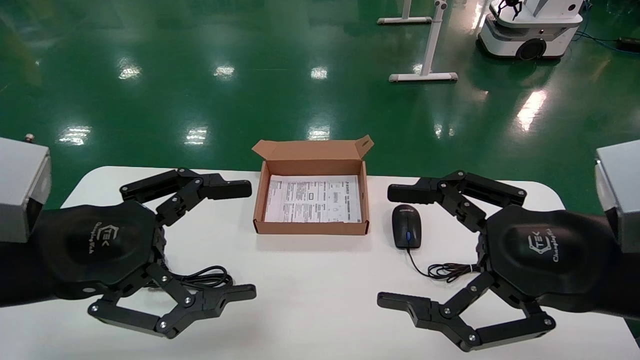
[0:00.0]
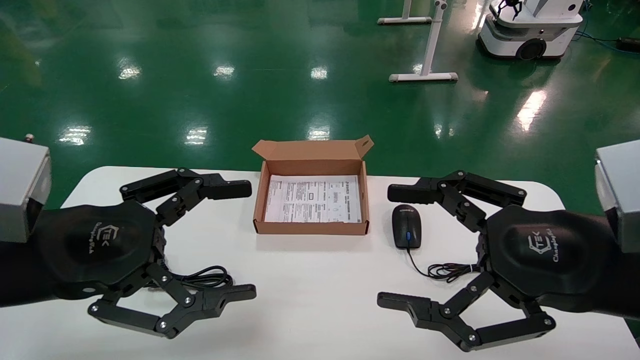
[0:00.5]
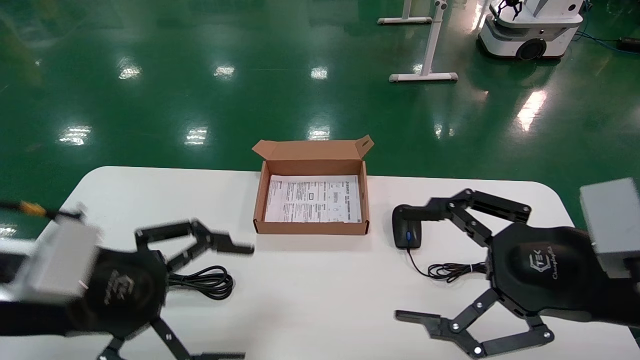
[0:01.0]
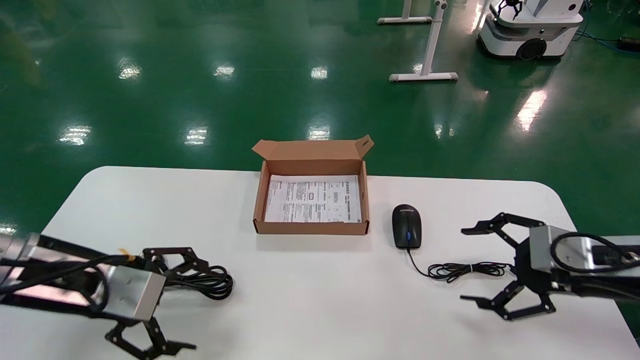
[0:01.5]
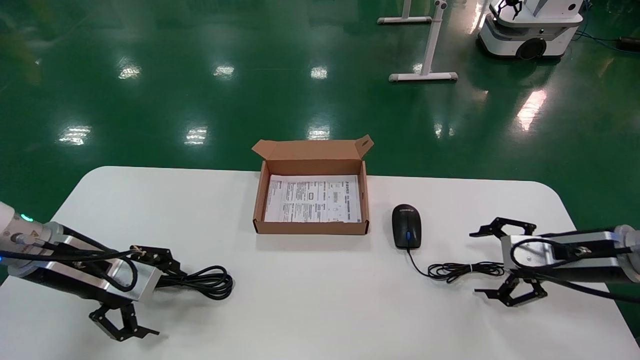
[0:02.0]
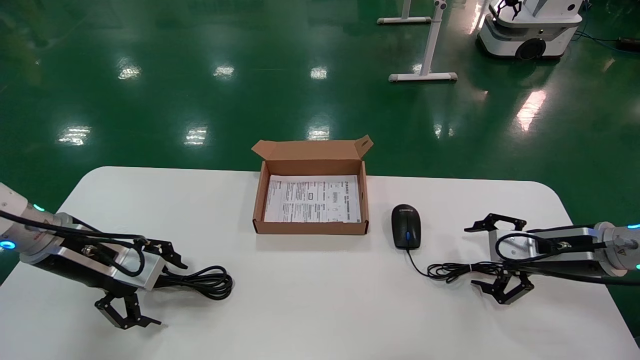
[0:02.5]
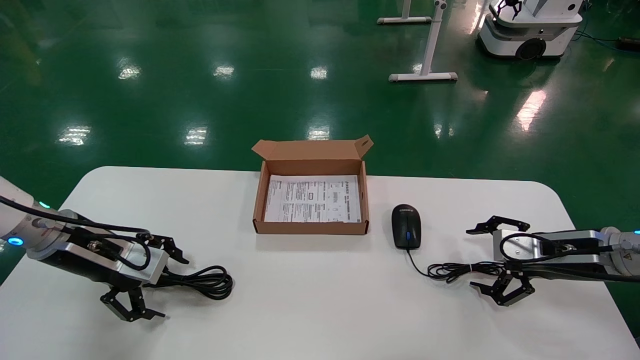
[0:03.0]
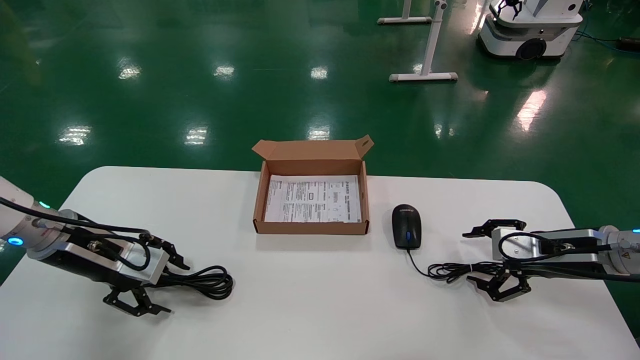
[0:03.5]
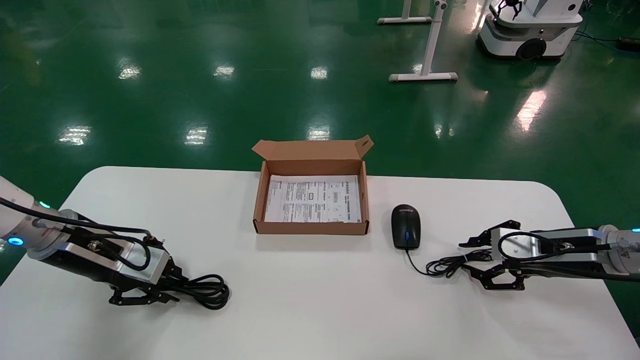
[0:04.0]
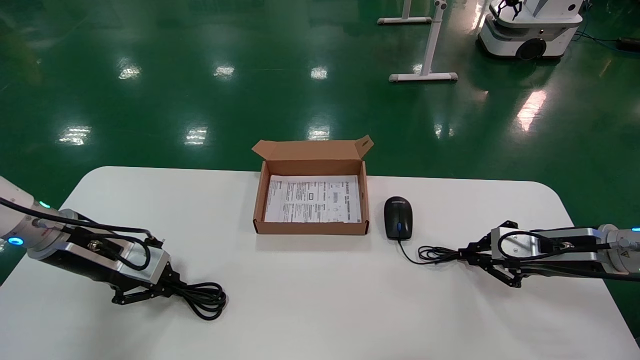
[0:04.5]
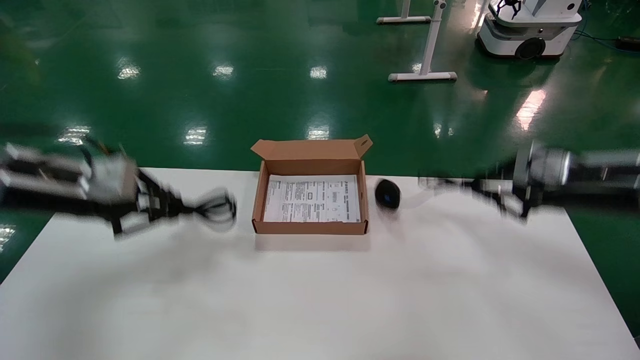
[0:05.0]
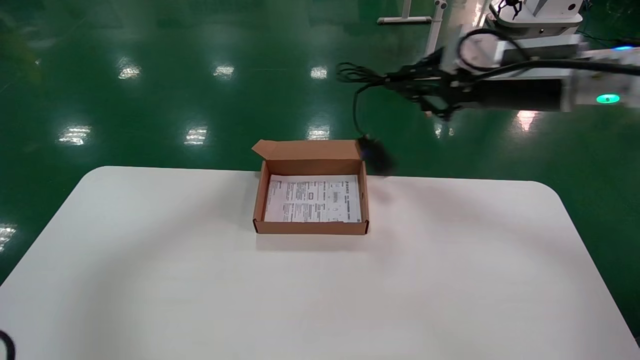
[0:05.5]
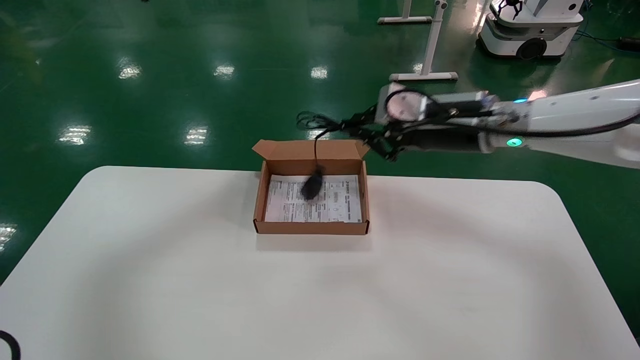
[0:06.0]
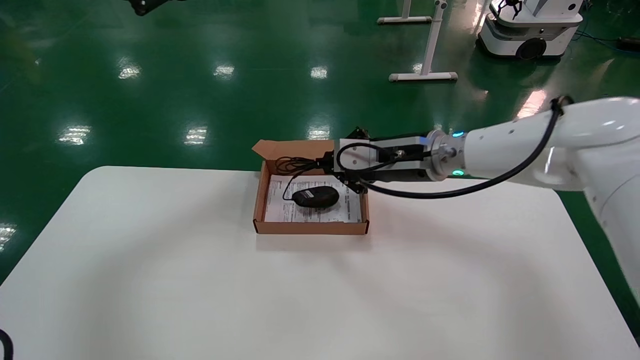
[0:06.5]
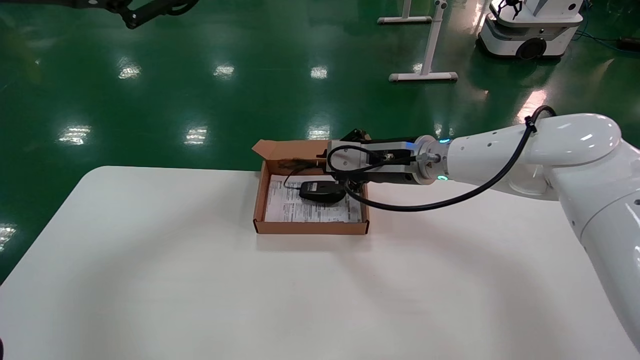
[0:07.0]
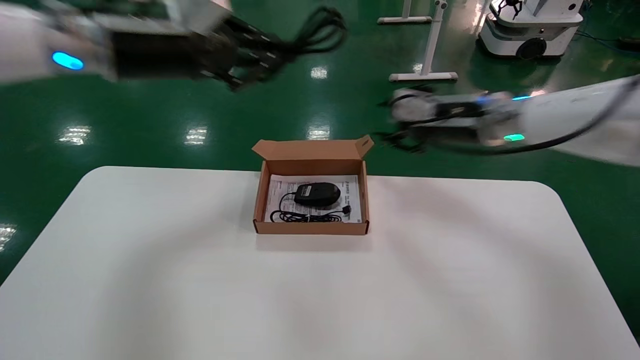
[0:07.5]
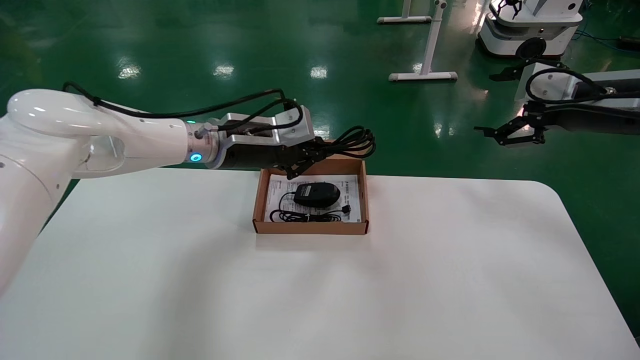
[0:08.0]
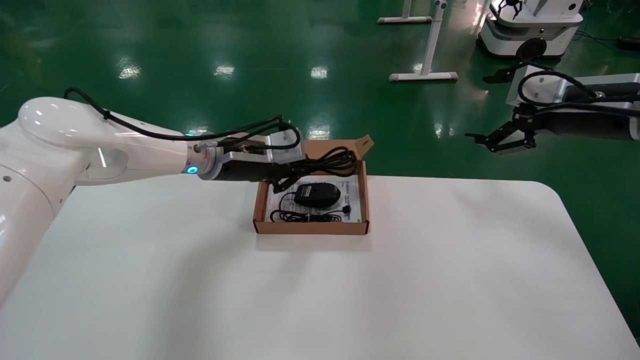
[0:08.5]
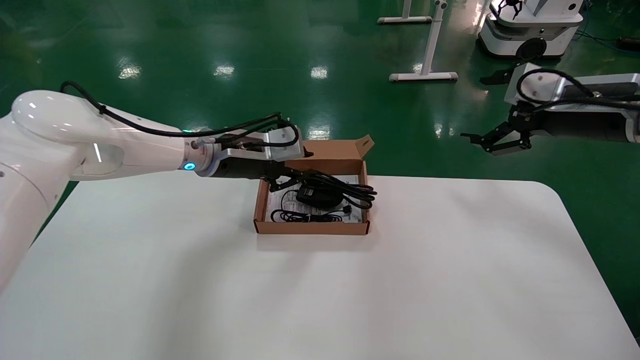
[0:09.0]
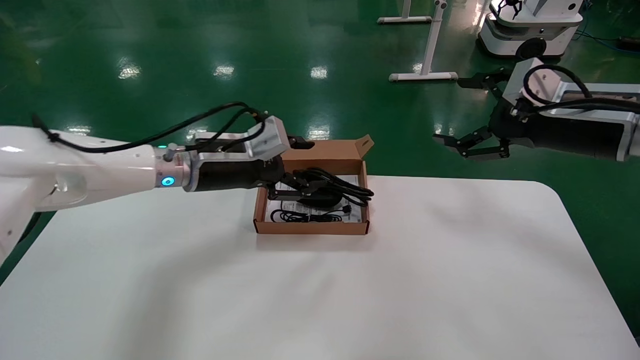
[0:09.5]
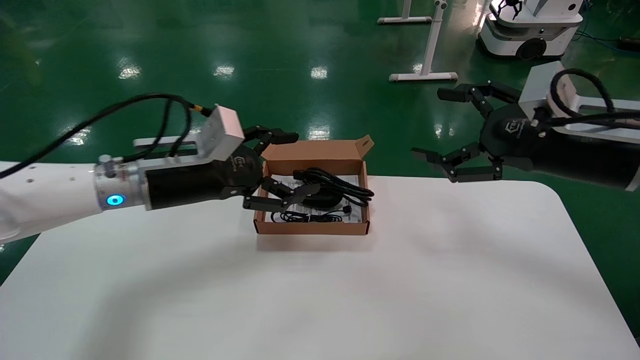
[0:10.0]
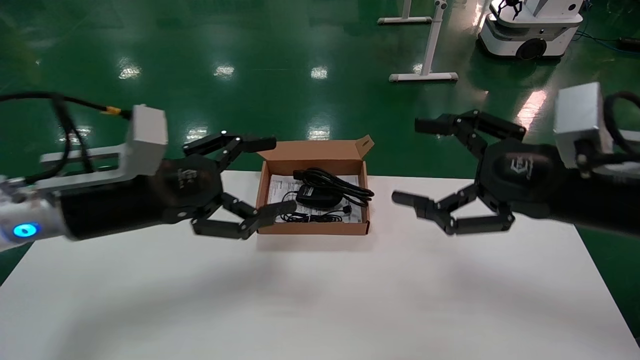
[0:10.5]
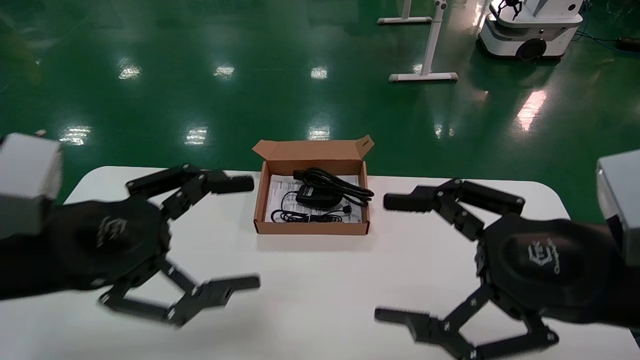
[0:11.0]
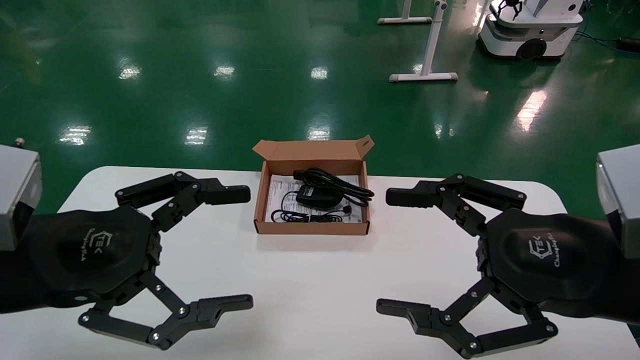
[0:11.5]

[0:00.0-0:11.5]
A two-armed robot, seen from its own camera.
Step, 0:01.0 to 0:04.5: Grab and lift both the mouse and power cord from the accessory packaging area at the same time.
Step, 0:05.0 to 0:09.0: Place the mouse and power cord into the box.
0:00.0 to 0:02.0: The left gripper travels forward, downward and to the left by about 15 cm. Meanwhile the right gripper is displaced forward, to the right and downward by approximately 25 cm.
0:02.0 to 0:04.0: The left gripper closes its fingers. Meanwhile the right gripper closes its fingers.
0:04.0 to 0:06.0: The left gripper travels upward by approximately 30 cm, and closes, while the right gripper is displaced to the left and upward by approximately 25 cm, and closes.
0:06.0 to 0:07.5: The left gripper is displaced downward, to the right and forward by approximately 15 cm.
0:07.5 to 0:09.5: The left gripper travels downward by roughly 15 cm, and opens up. The right gripper moves to the right and backward, about 10 cm, and opens up.
0:09.5 to 0:11.5: Both grippers travel together backward, some 20 cm. The left gripper opens up.

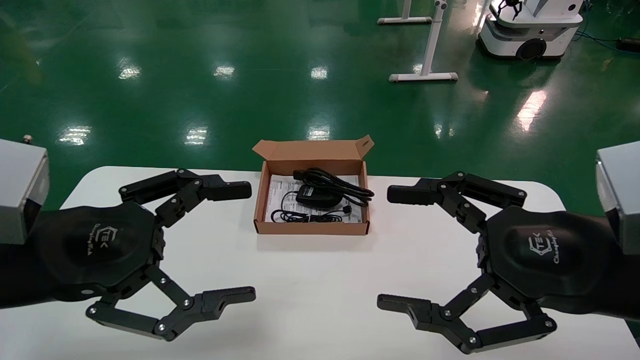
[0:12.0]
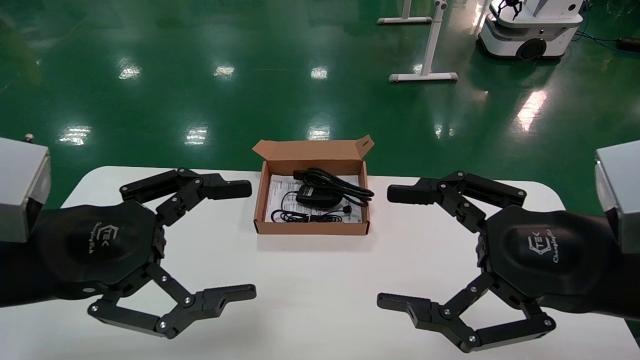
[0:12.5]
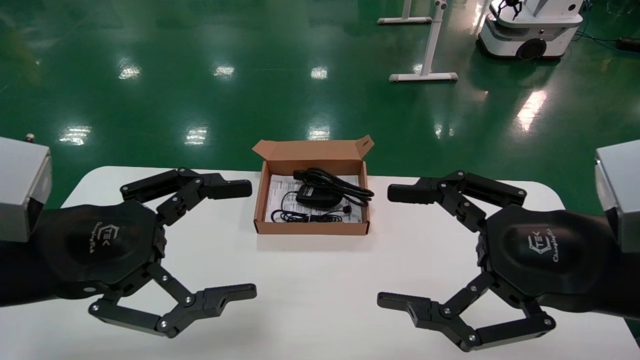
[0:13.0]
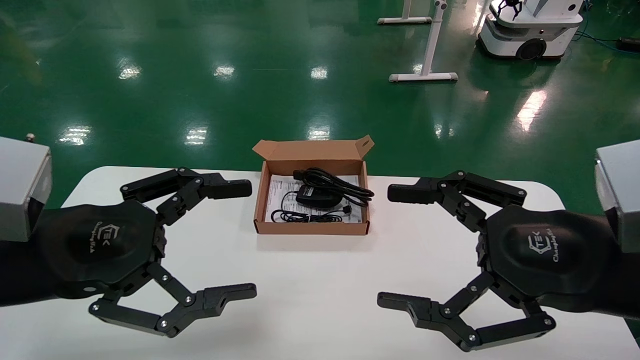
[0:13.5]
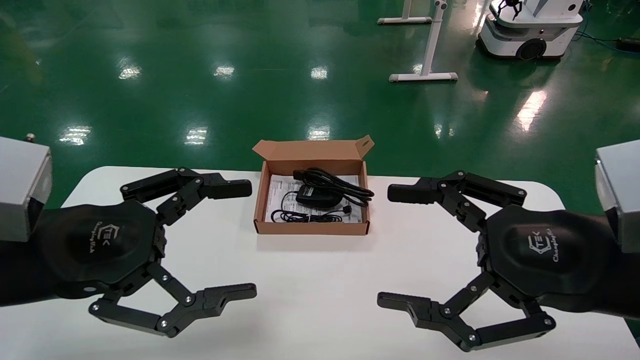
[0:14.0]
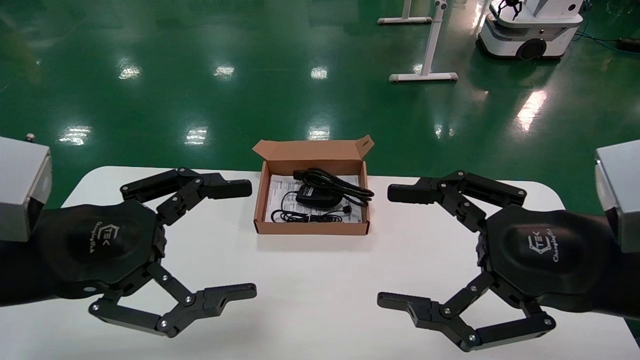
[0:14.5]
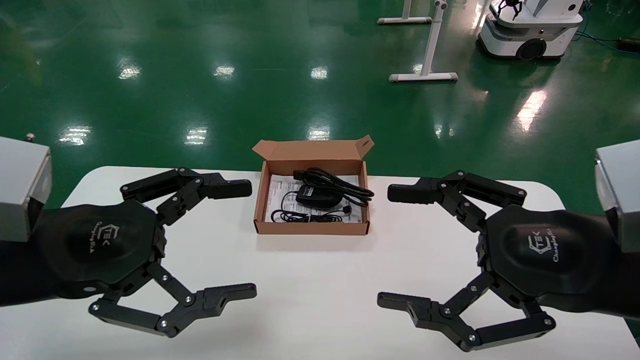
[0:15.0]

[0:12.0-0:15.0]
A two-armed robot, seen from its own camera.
0:12.0 to 0:15.0: Neither gripper changes place.
